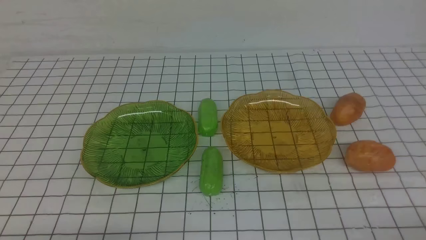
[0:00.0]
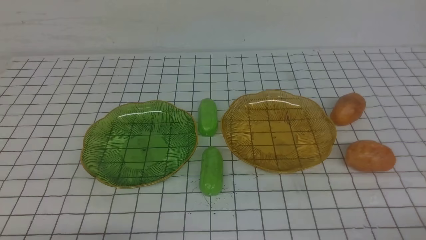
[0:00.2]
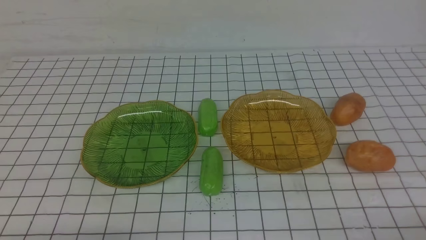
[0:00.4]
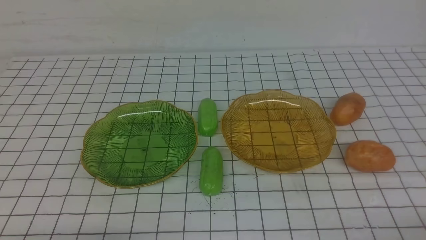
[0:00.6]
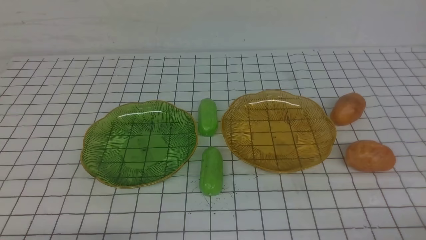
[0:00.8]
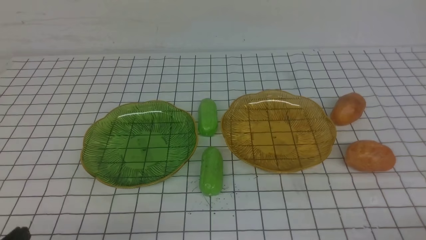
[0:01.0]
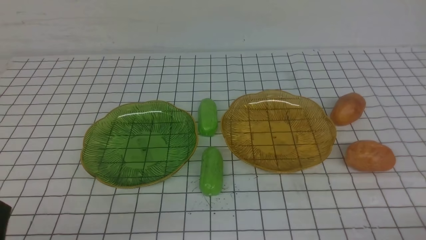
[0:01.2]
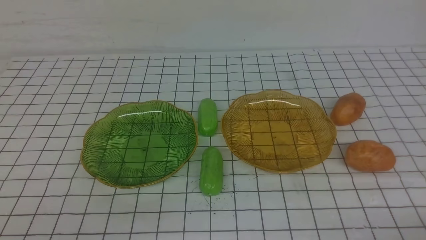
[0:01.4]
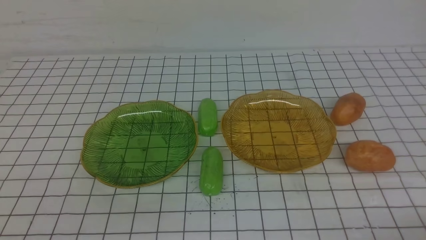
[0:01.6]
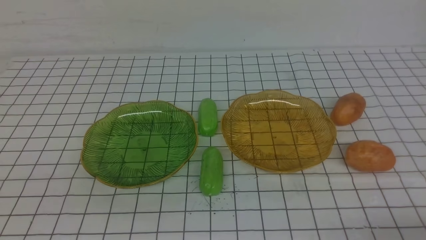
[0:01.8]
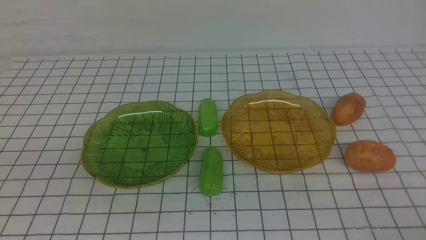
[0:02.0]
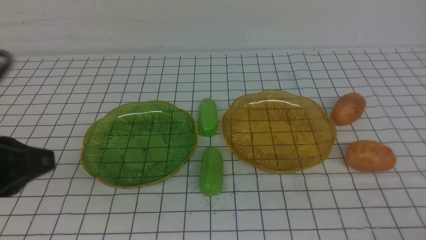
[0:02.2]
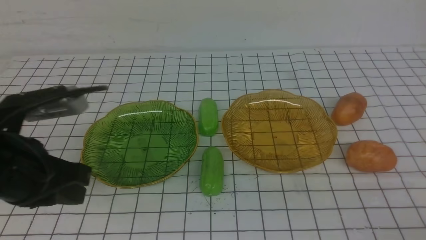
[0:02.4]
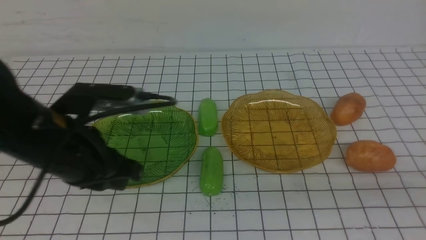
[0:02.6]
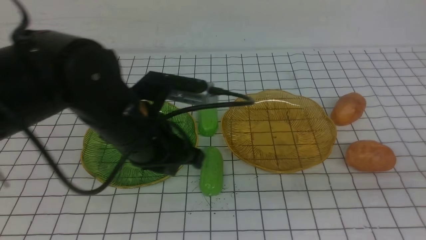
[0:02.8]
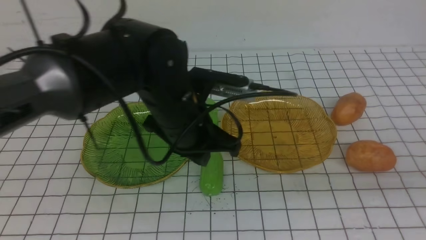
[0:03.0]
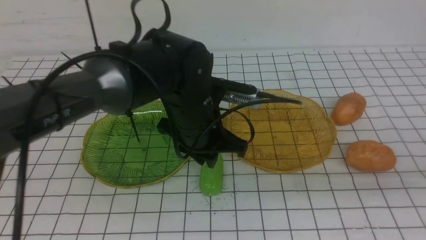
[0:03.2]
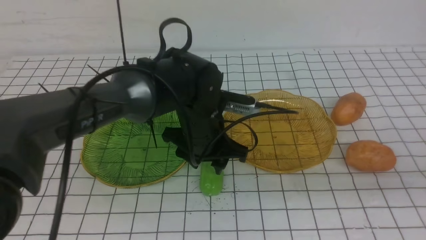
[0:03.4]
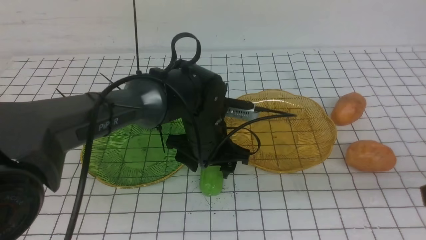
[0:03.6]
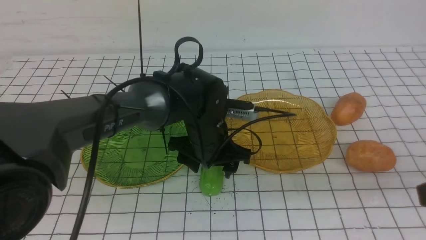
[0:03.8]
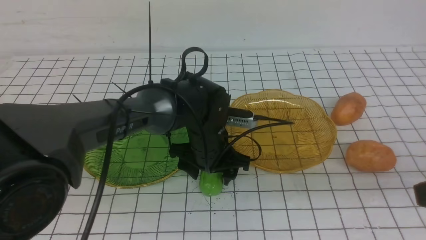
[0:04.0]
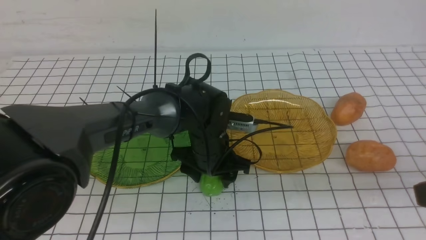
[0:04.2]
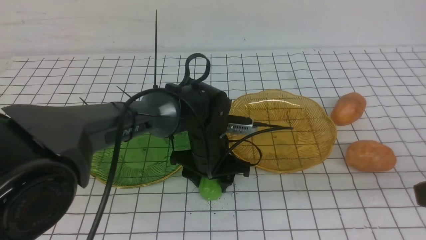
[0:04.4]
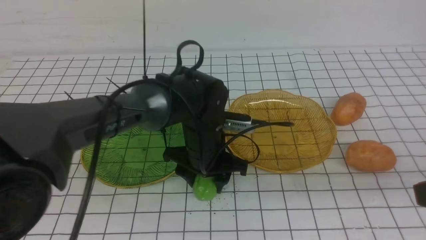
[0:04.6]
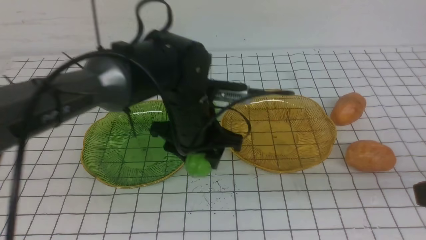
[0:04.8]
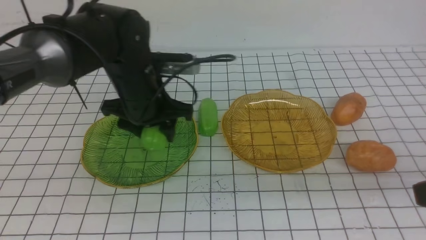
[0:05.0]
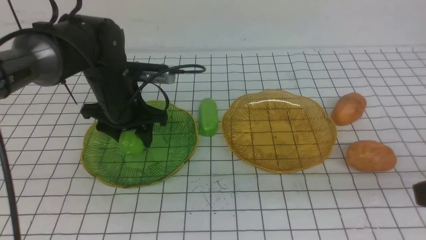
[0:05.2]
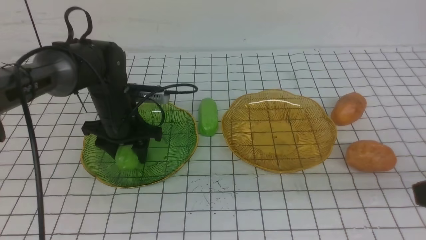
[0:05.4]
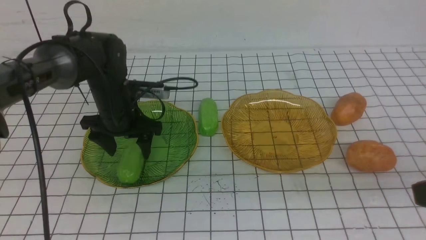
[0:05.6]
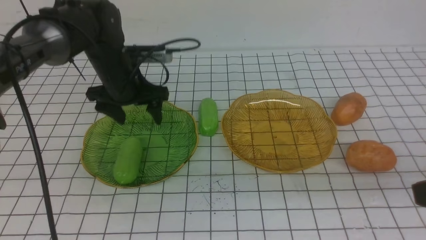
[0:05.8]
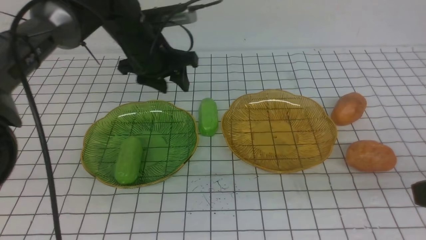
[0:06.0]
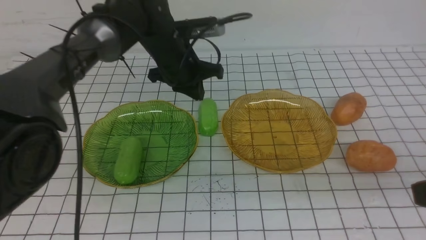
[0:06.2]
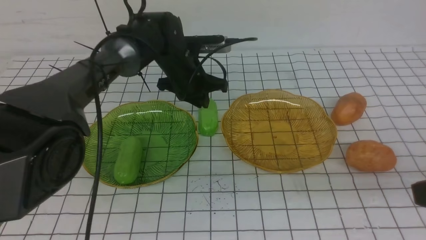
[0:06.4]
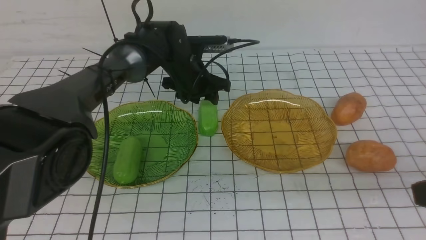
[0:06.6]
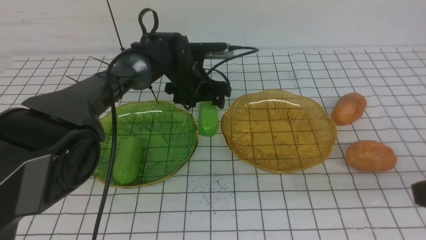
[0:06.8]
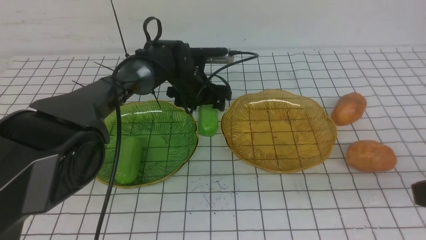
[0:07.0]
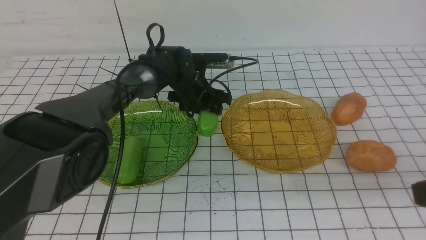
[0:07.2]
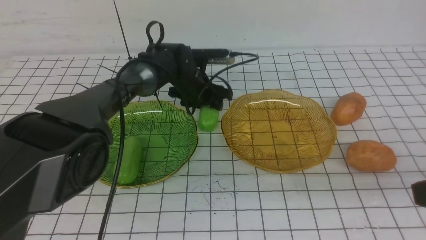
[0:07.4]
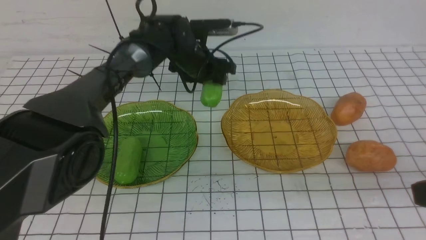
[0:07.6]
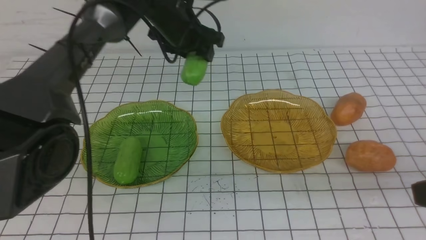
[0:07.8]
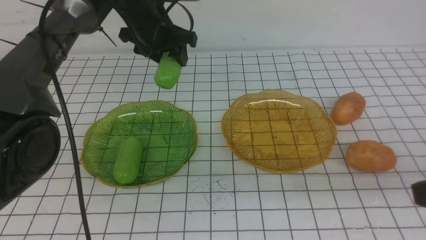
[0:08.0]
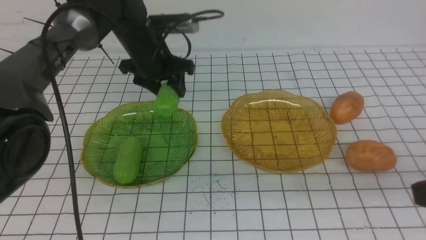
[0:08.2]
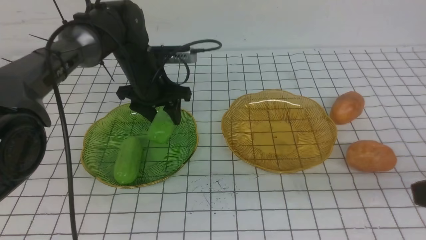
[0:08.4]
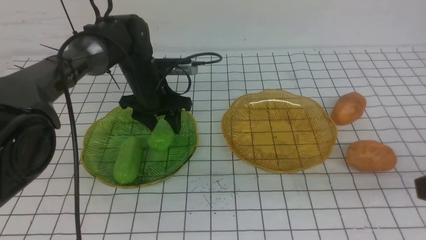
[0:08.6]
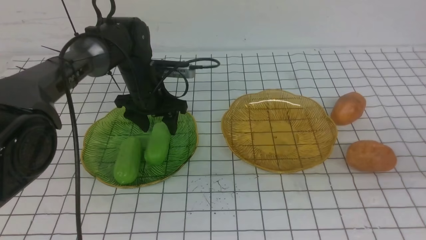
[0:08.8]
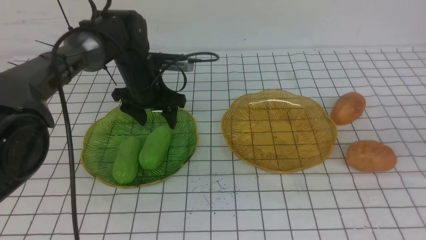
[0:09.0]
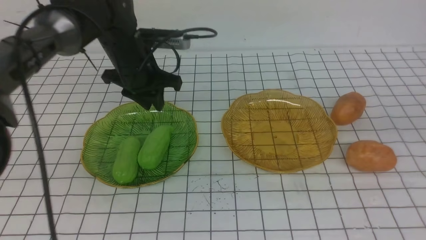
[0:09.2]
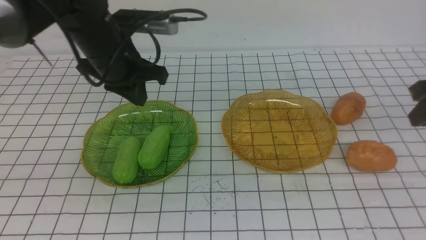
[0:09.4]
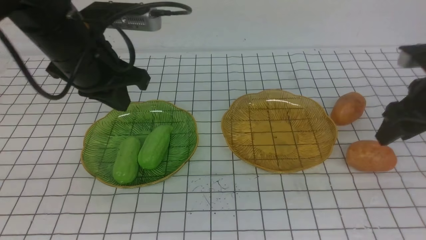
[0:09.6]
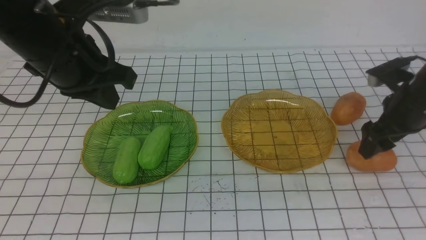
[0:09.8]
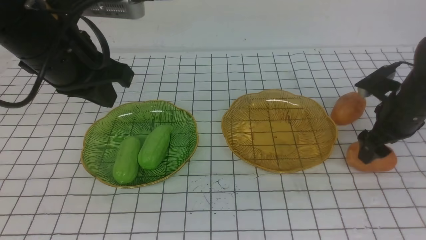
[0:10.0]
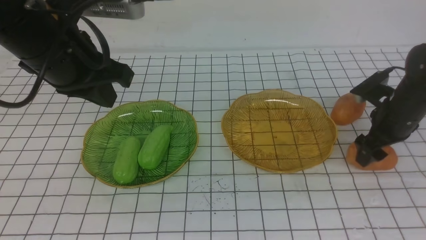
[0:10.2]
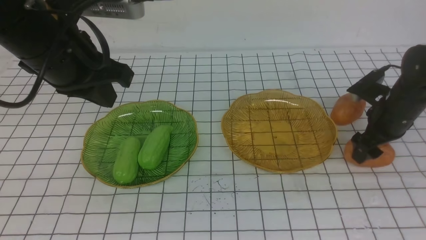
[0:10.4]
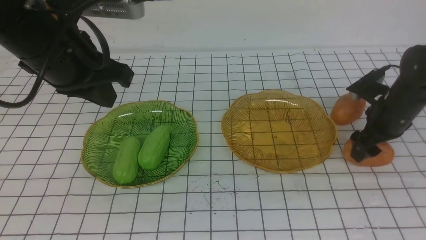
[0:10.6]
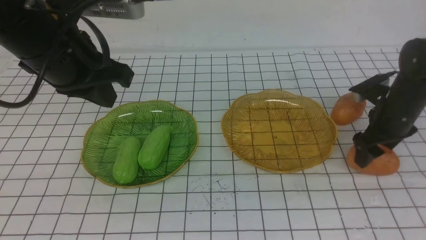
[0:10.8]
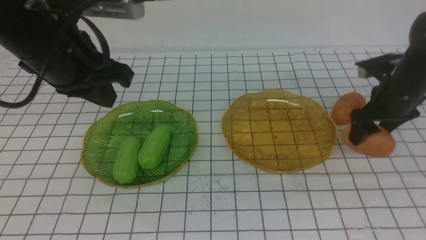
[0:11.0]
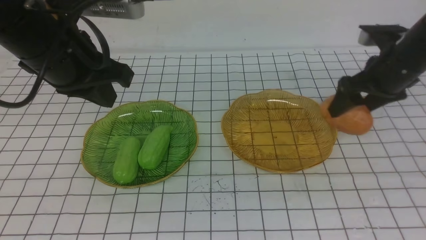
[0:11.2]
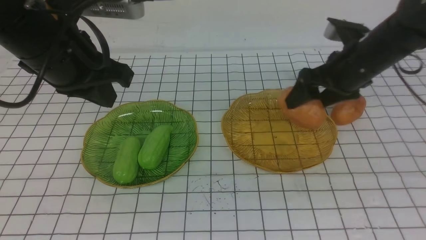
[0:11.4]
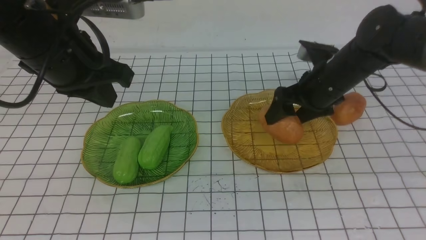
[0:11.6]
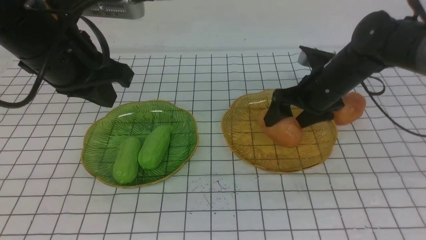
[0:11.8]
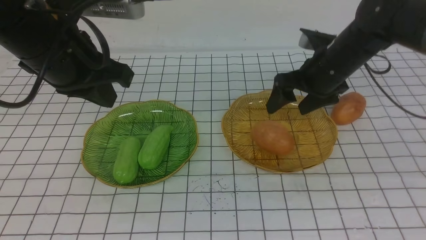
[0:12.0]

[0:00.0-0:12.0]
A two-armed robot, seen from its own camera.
Step, 0:00.0 to 0:08.8: use the left arm to grab a chayote and put it into the left plate.
0:01.6 to 0:03.0: The right gripper goes some 15 cm upward. Meanwhile the left gripper heads forward and to the right, covering some 35 cm.
0:03.0 to 0:04.4: The left gripper moves downward and forward, roughly 10 cm, and opens up.
0:04.4 to 0:06.0: The left gripper goes roughly 15 cm forward, upward and to the left.
0:06.0 to 0:07.6: The left gripper goes roughly 5 cm forward, and reaches some 10 cm downward, then returns.
0:07.6 to 0:09.0: The left gripper goes approximately 10 cm to the left and backward, and travels upward and back again, some 5 cm each way; the right gripper heads forward, covering roughly 10 cm.
0:09.0 to 0:10.4: The left gripper travels backward and upward by approximately 20 cm, and closes its fingers. Meanwhile the right gripper travels forward and downward by approximately 25 cm, and opens its fingers.
0:10.4 to 0:12.0: The right gripper moves to the left and upward, about 15 cm.

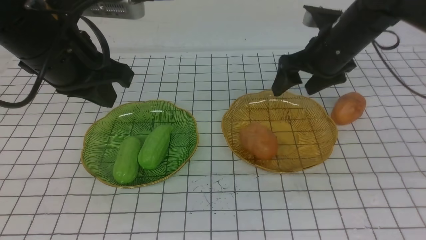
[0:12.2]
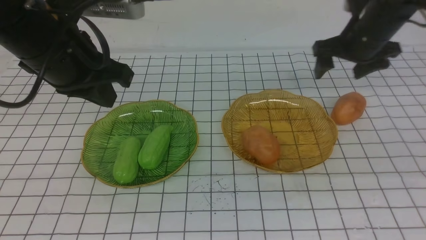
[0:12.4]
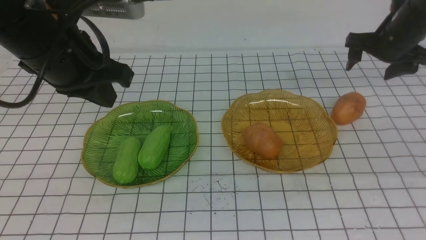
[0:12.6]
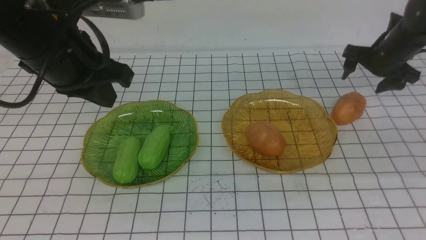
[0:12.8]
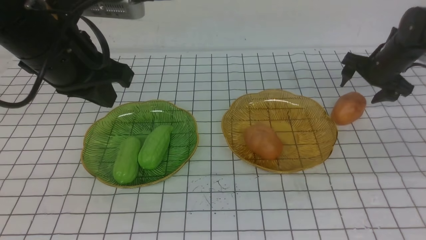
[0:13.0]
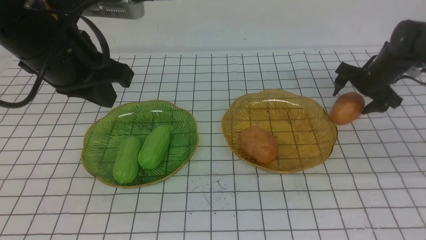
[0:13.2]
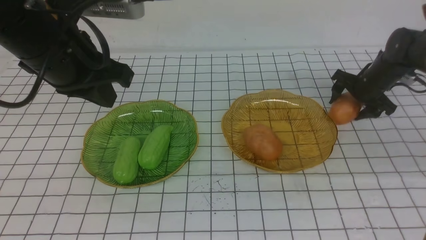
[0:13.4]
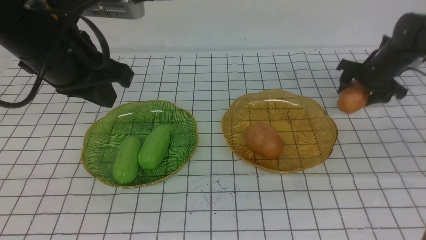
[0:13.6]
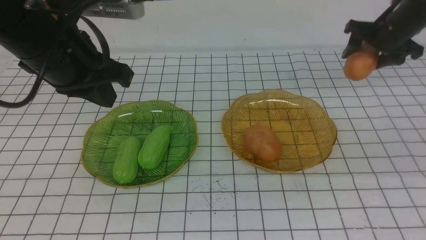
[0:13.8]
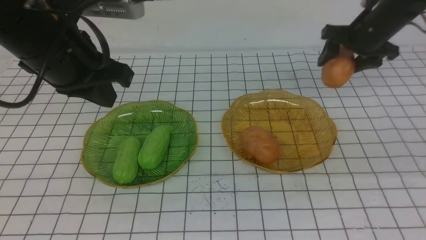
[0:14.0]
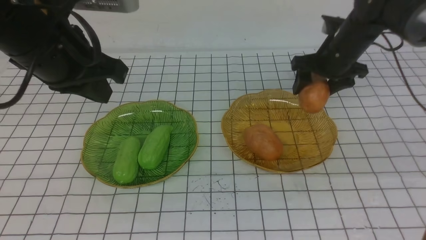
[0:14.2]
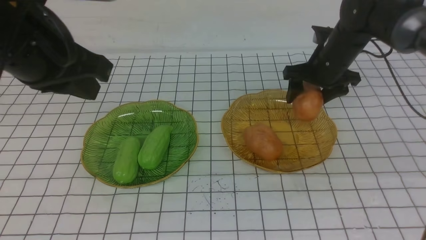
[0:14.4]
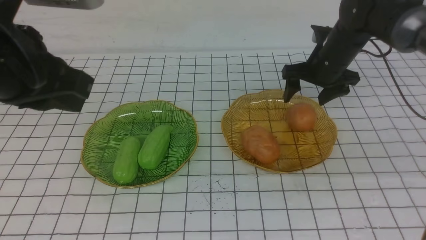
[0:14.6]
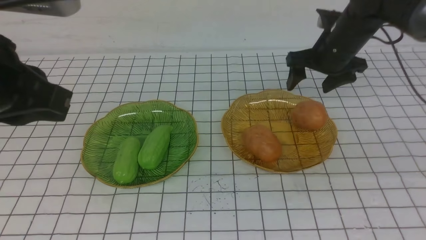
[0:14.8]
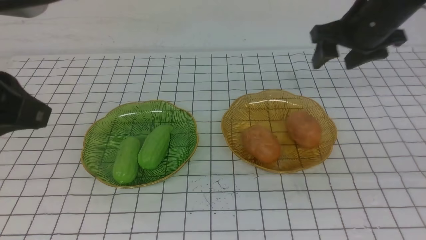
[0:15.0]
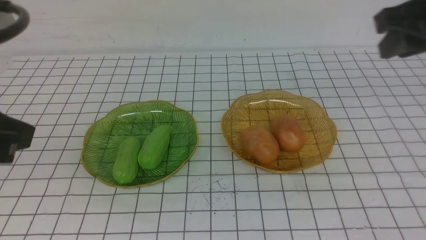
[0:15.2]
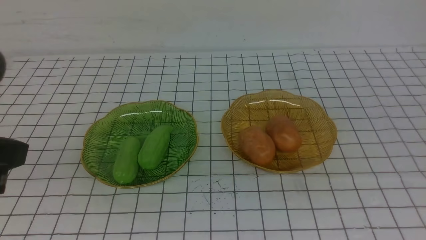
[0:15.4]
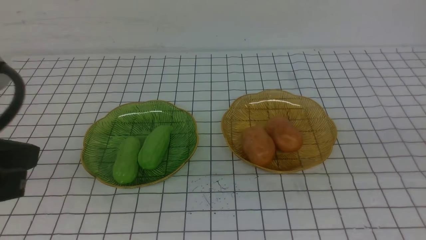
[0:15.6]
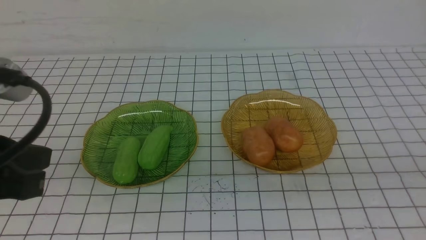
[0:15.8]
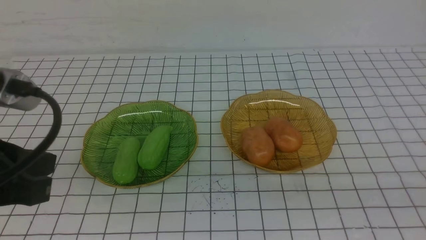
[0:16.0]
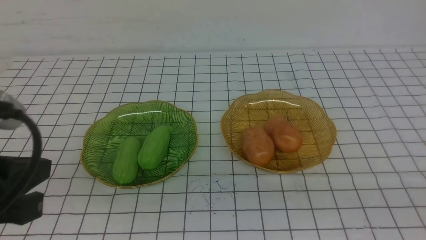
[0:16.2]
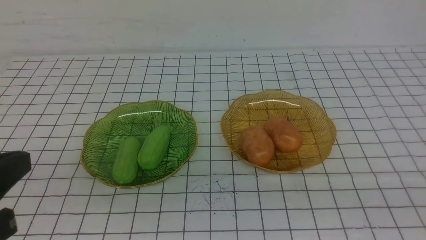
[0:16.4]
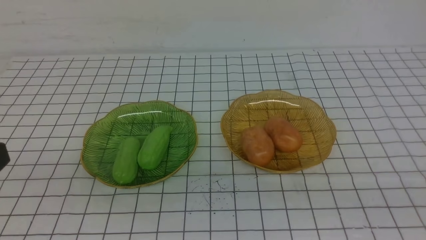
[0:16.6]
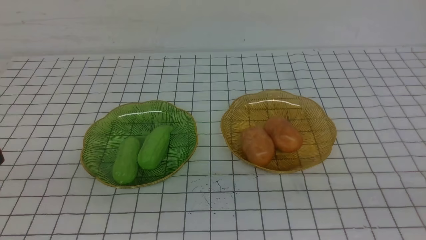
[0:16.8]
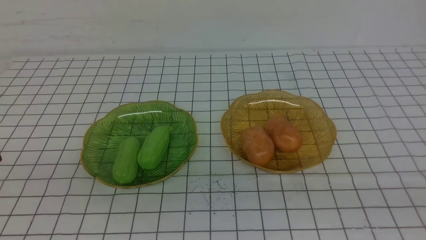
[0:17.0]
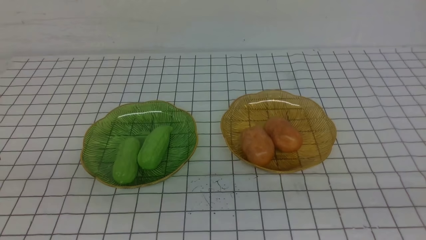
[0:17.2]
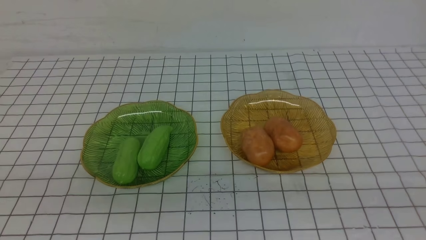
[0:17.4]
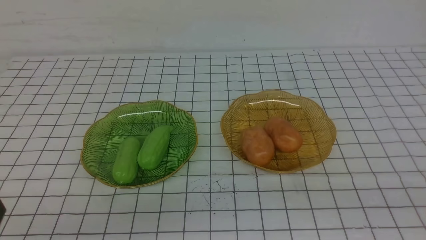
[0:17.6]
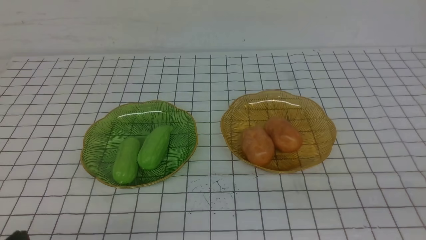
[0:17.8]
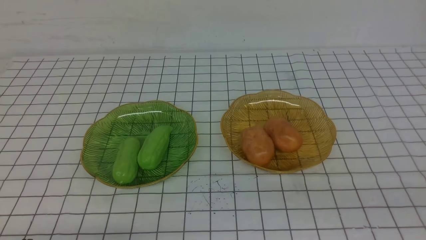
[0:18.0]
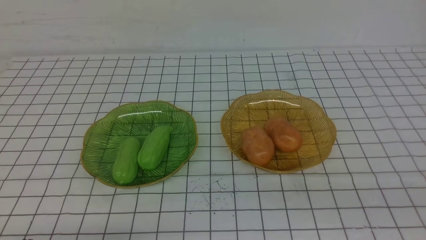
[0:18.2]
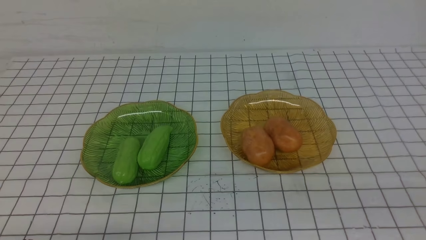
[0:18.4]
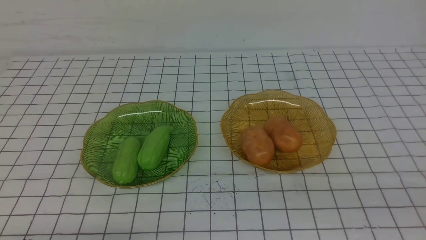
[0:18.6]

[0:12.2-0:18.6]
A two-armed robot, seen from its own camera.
Step, 0:12.2 to 0:14.6: Grab a potato with your right arm and put it on the right plate.
0:12.2 to 0:13.8: The right gripper shifts about 10 cm to the right and forward, and reaches some 10 cm downward, then returns.
0:13.8 to 0:15.4: The left gripper travels backward by some 15 cm, while the right gripper shifts approximately 35 cm backward and upward, and closes its fingers.
0:15.4 to 0:17.0: The left gripper is displaced backward by approximately 5 cm.
